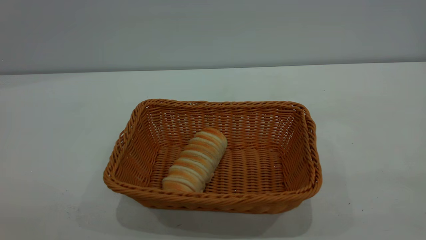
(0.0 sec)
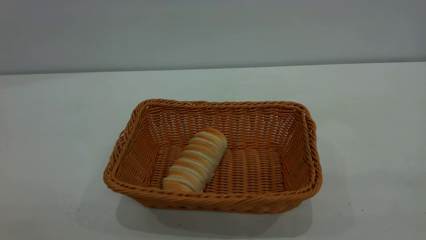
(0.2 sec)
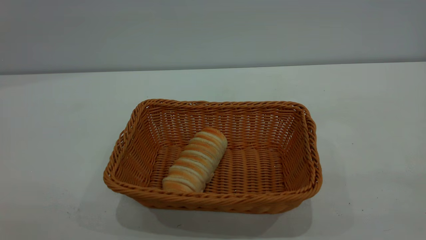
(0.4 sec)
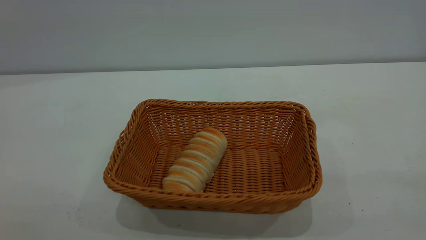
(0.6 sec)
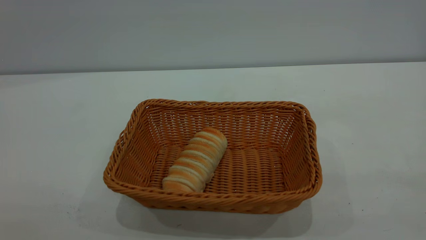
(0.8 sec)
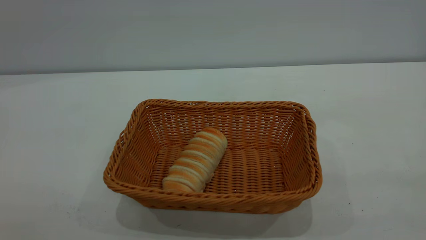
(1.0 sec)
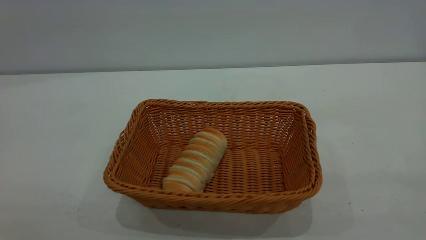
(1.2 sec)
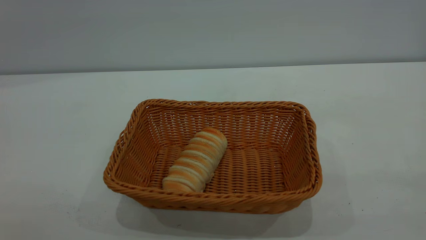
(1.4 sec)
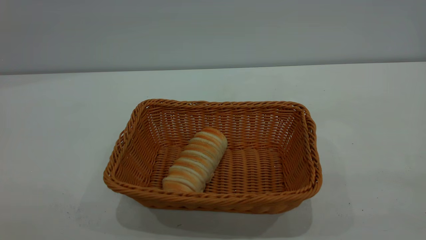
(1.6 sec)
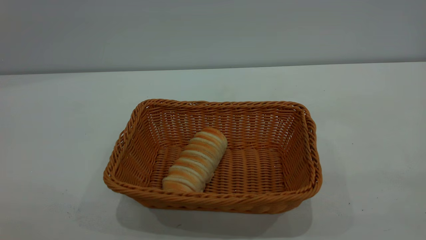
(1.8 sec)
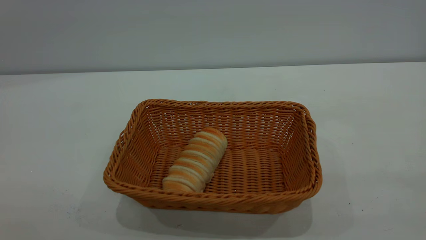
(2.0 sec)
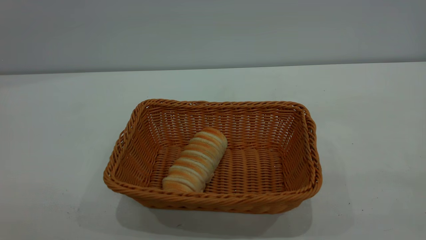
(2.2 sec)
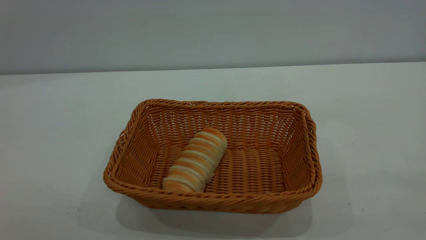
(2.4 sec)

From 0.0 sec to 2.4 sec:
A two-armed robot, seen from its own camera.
Task of the whole recording: One hand grasps the yellow basket and places it in the middle of the table, while the other hand picks up the long bread and puts it into the yellow basket.
From 1.2 sec to 2.4 sec: The two grippers keep their place.

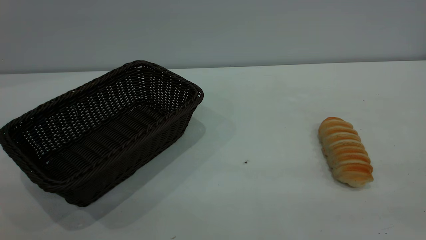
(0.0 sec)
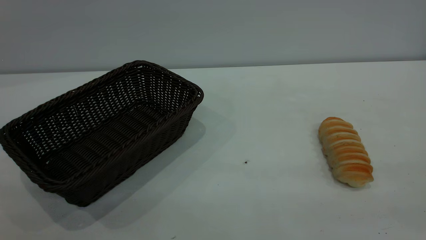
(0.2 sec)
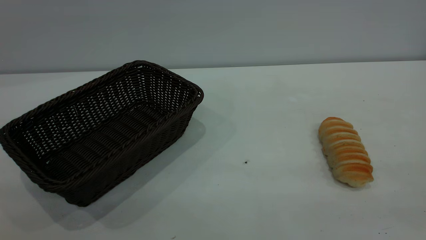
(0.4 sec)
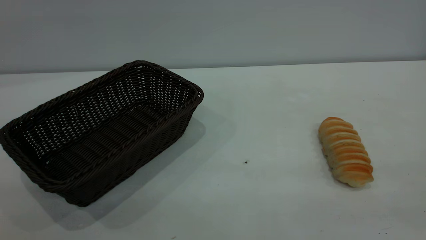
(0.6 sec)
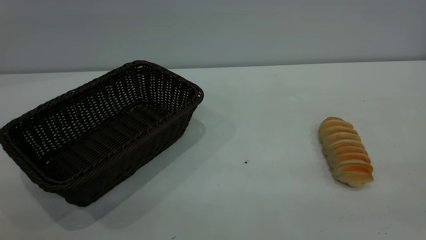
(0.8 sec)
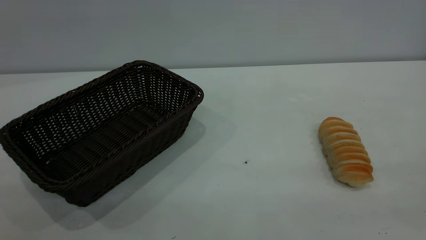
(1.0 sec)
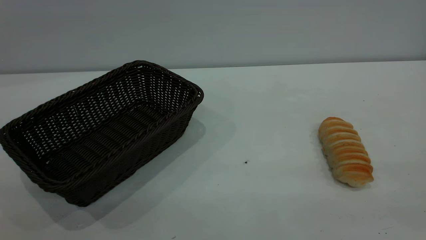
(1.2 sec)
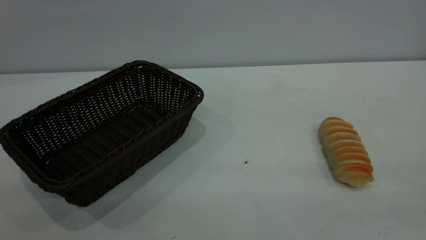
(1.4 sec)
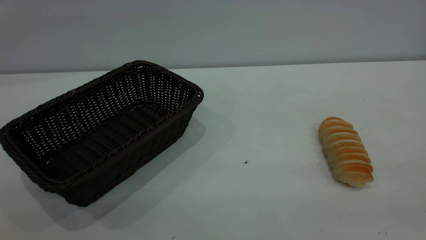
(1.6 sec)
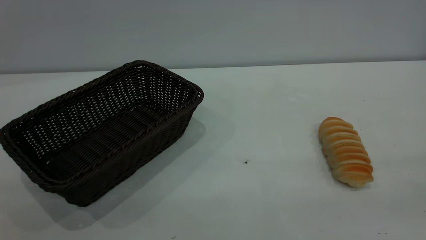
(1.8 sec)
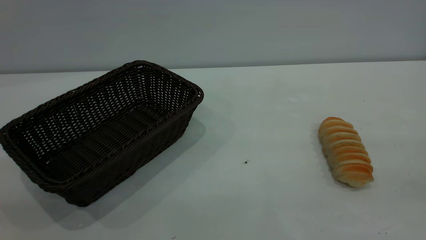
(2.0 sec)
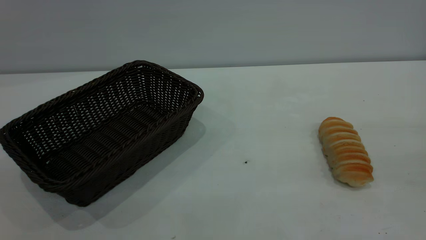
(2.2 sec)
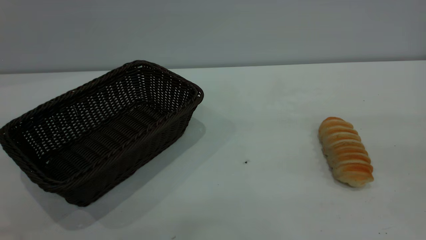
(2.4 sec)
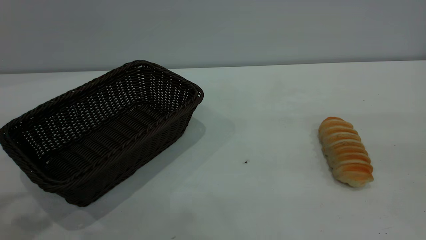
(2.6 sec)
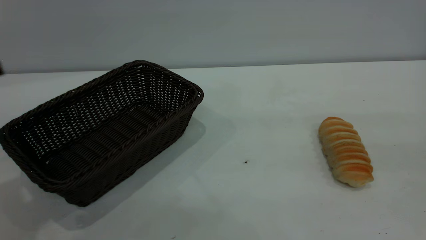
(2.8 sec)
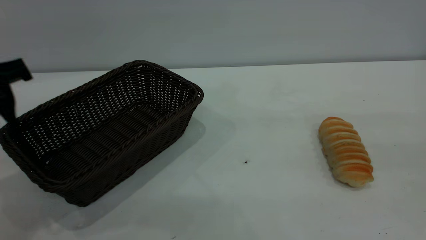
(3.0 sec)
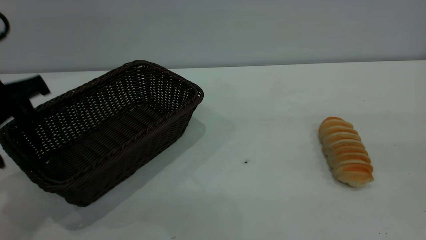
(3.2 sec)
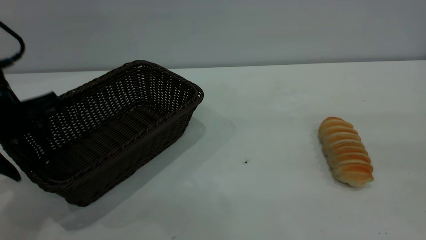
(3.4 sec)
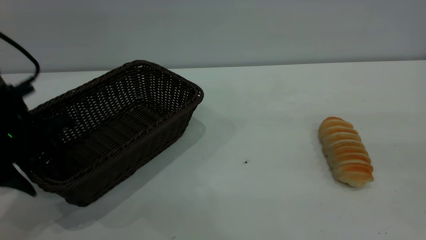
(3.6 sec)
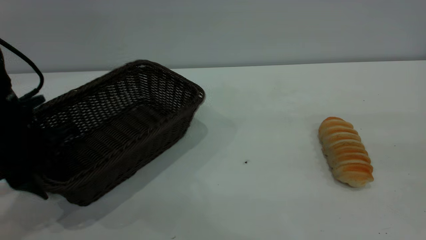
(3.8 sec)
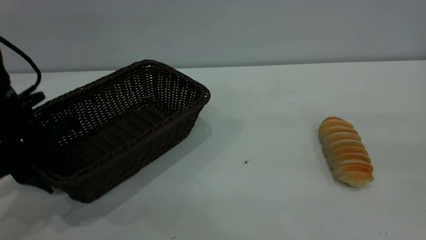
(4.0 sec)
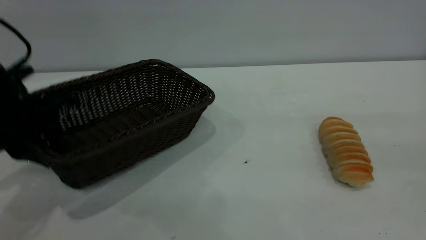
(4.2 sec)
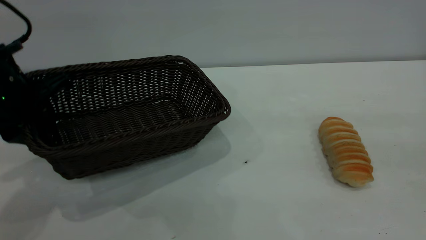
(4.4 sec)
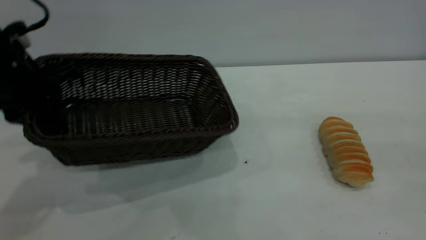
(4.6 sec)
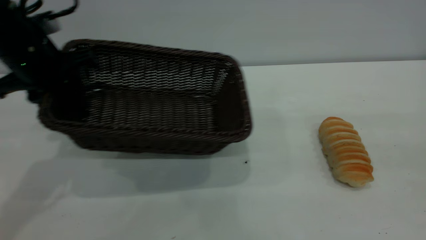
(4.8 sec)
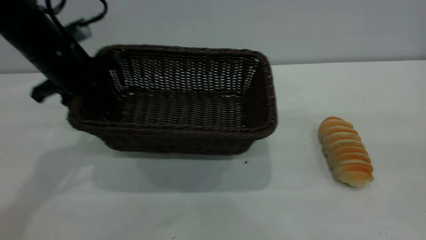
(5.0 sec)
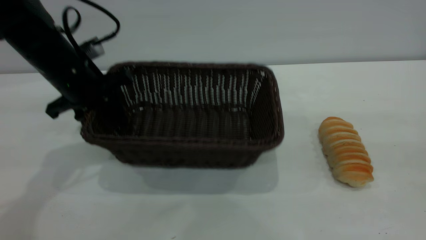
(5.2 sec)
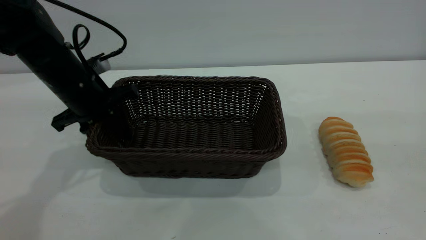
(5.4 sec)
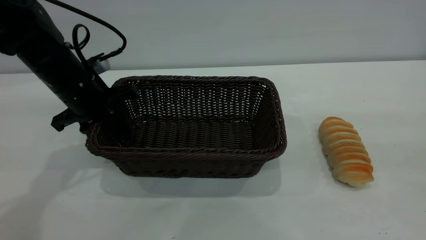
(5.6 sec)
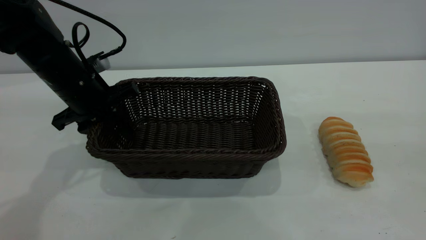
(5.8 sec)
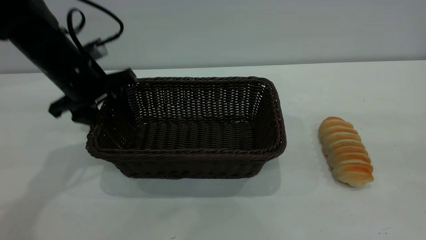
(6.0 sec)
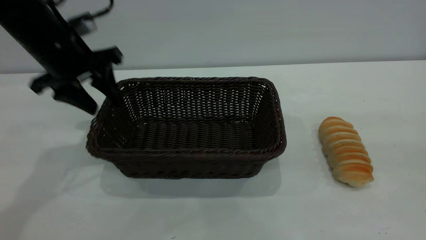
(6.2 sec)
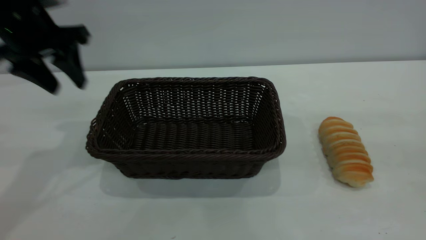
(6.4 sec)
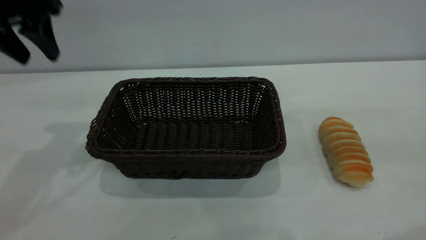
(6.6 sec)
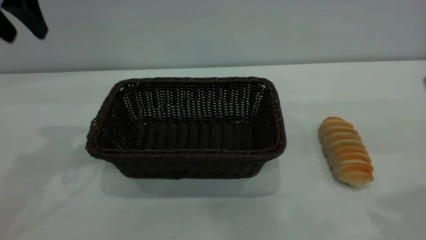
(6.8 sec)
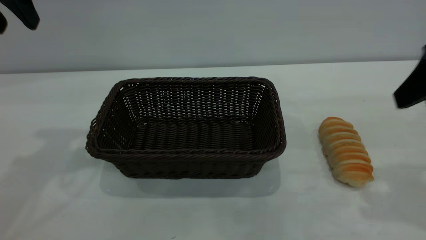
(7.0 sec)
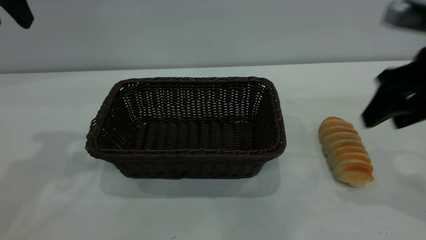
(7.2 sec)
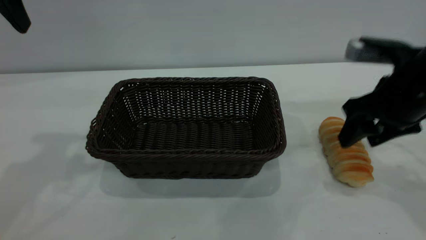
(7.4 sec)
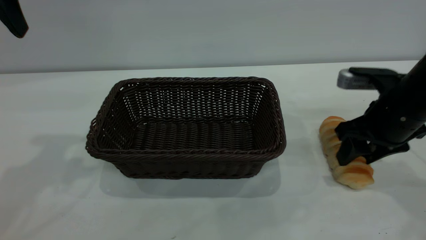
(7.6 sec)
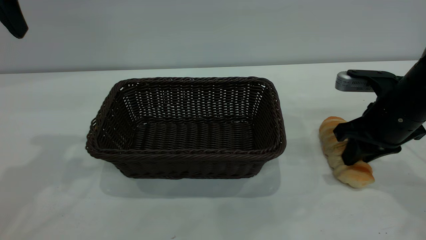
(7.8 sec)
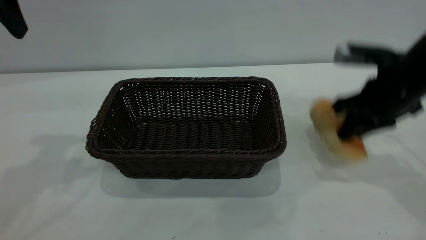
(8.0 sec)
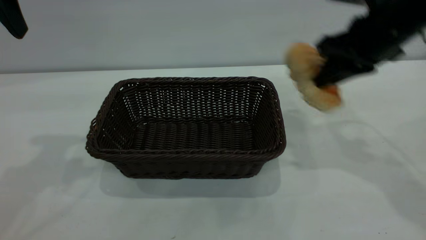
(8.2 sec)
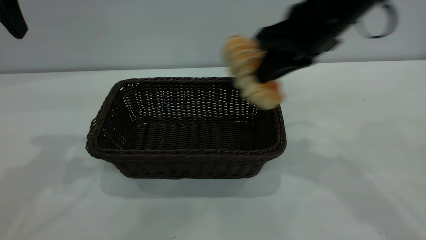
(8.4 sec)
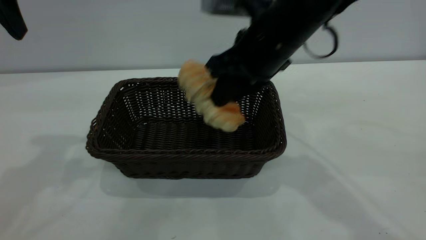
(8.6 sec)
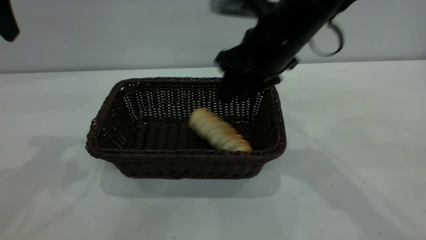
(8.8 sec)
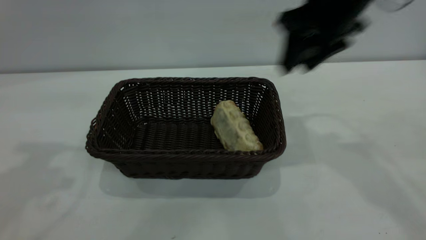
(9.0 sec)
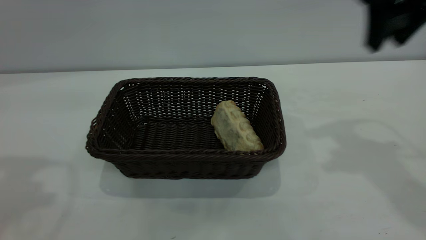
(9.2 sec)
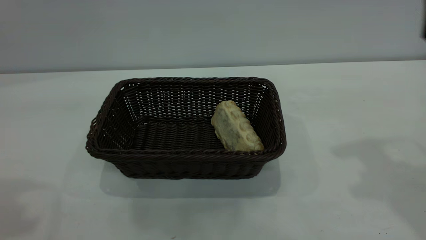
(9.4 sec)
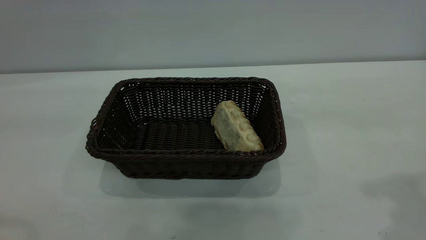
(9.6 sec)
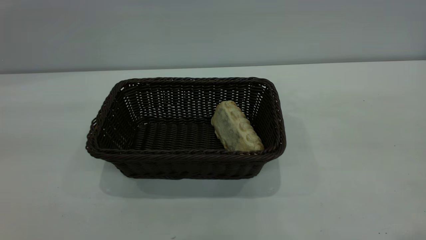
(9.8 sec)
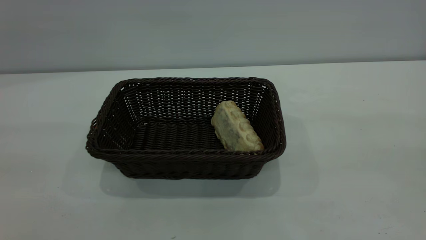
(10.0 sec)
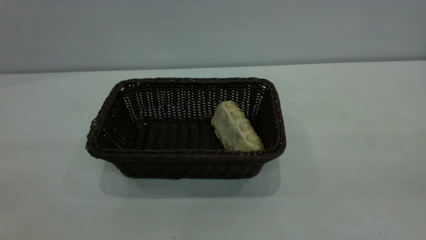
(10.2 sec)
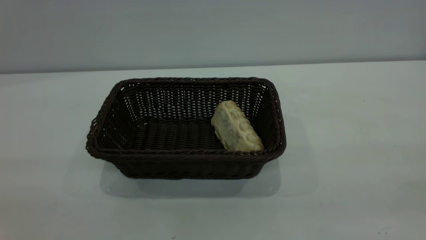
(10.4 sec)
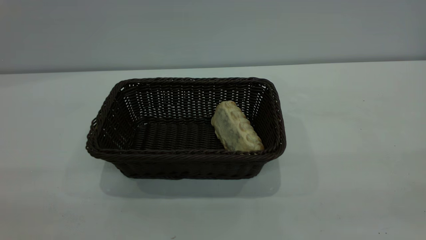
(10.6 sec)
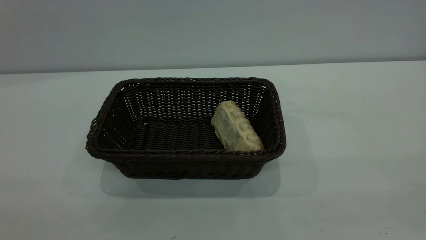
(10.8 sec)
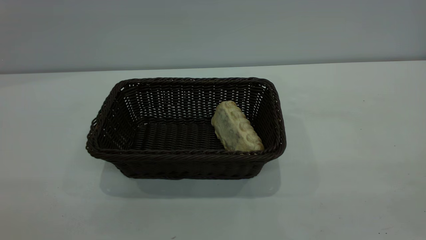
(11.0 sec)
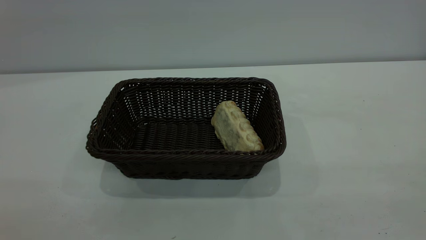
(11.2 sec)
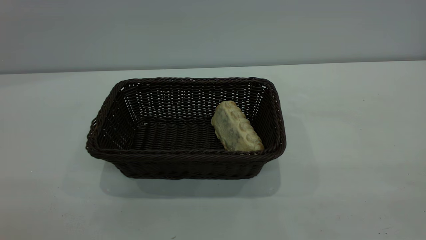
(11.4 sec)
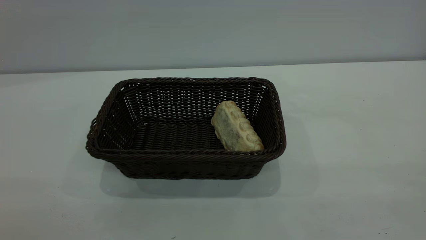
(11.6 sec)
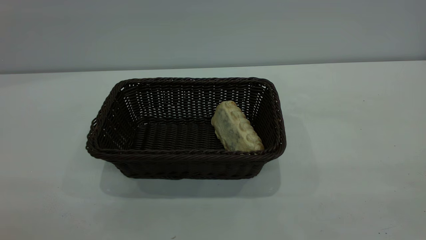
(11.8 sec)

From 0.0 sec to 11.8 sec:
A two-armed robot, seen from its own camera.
Task of the whole recording: One hand grasps the black basket and places it in the middle of the table, while the other hand picks up the long bread and puts it into the black basket.
Step, from 0.0 sec to 6.2 sec: Move the basket to the center of view.
Step, from 8.2 sec to 8.8 sec: place the bread into the basket.
From 0.0 sec to 1.4 sec: The two grippers keep their place.
From 1.4 sec to 3.0 sec: The left gripper goes approximately 30 cm forward.
From 3.0 sec to 4.4 sec: The left gripper closes its fingers.
From 4.4 sec to 6.0 sec: The left gripper goes approximately 10 cm forward, and opens.
From 6.0 sec to 7.4 sec: The right gripper heads forward and downward, covering about 30 cm. Meanwhile the left gripper heads upward, covering roughly 20 cm.
From 7.4 sec to 8.8 sec: The right gripper heads to the left and upward, covering about 15 cm, and closes and opens again.
From 8.8 sec to 10.4 sec: The left gripper travels backward by some 30 cm, while the right gripper travels backward and to the right by about 40 cm.
